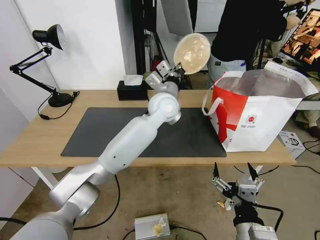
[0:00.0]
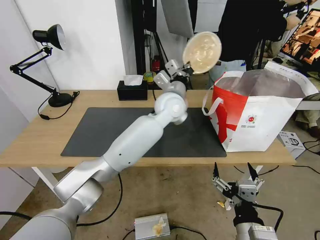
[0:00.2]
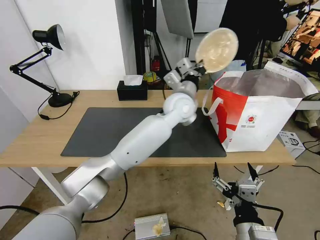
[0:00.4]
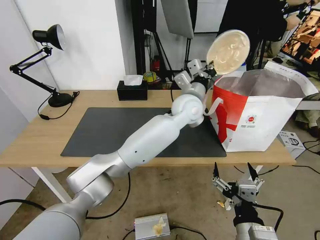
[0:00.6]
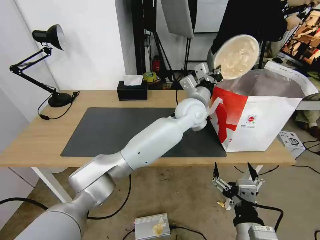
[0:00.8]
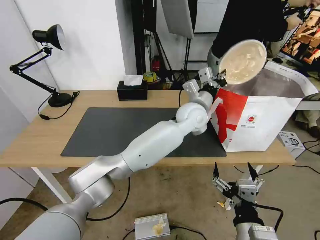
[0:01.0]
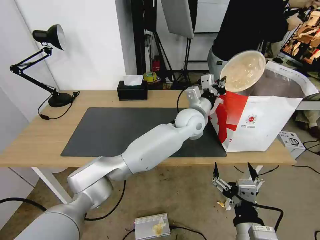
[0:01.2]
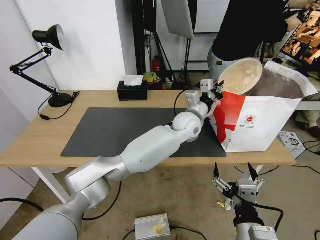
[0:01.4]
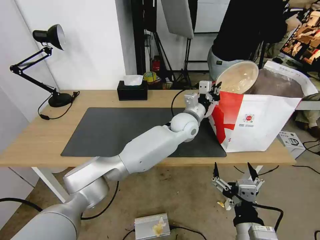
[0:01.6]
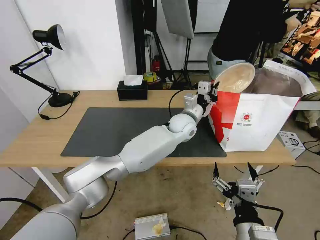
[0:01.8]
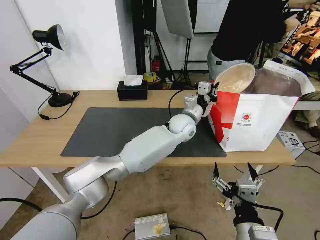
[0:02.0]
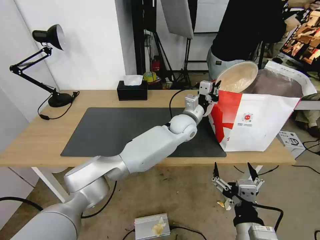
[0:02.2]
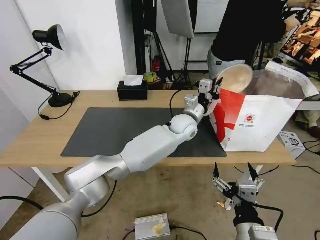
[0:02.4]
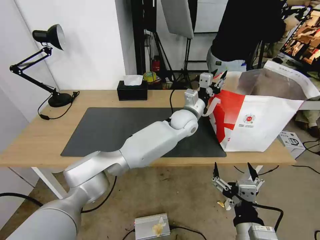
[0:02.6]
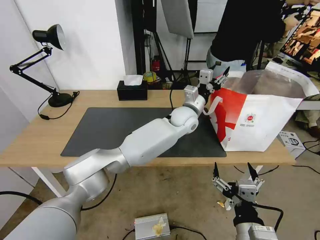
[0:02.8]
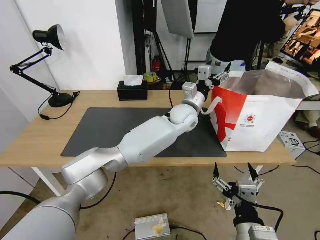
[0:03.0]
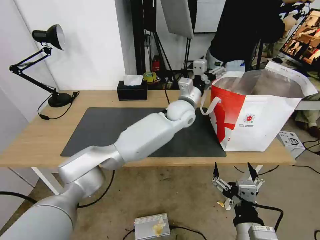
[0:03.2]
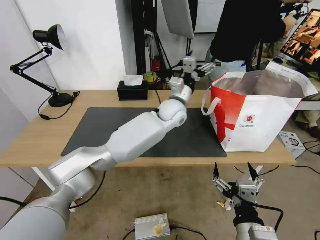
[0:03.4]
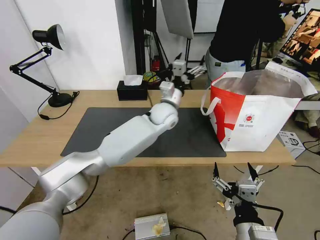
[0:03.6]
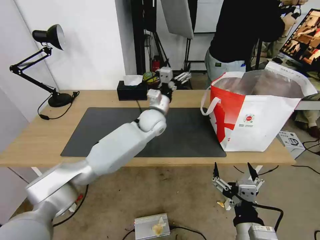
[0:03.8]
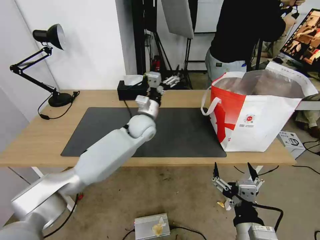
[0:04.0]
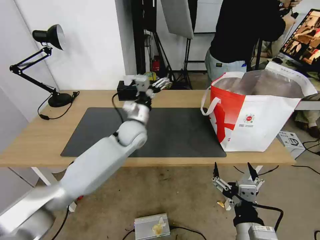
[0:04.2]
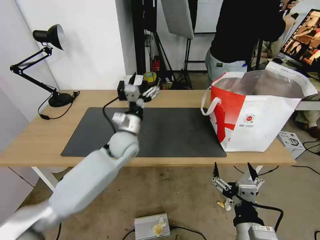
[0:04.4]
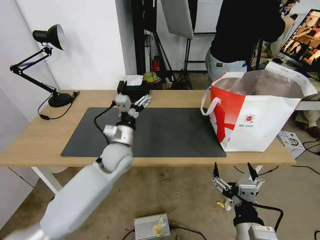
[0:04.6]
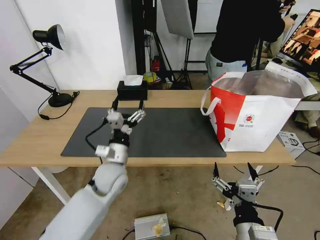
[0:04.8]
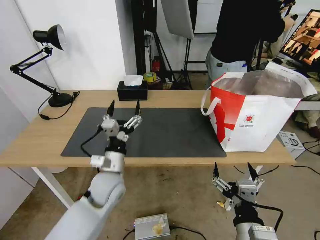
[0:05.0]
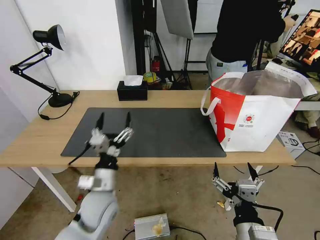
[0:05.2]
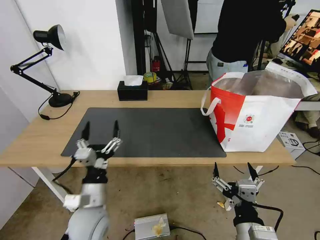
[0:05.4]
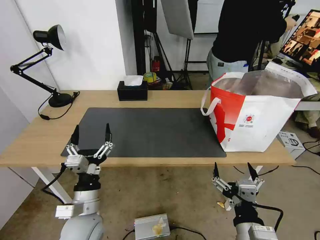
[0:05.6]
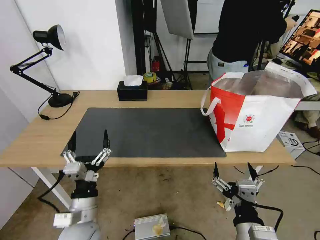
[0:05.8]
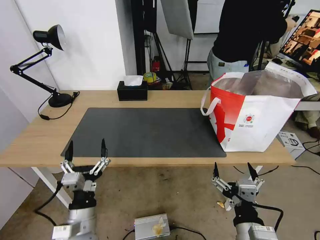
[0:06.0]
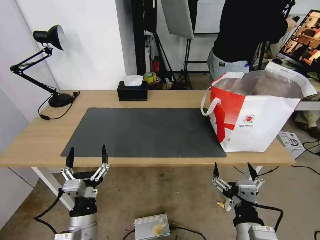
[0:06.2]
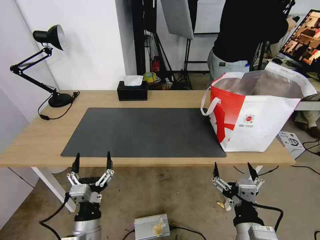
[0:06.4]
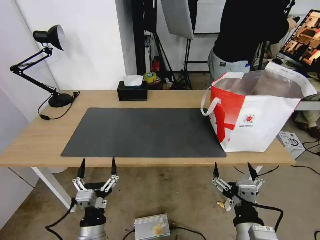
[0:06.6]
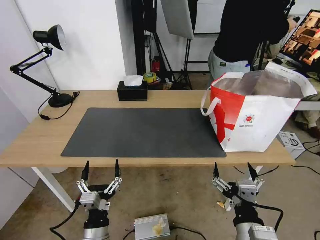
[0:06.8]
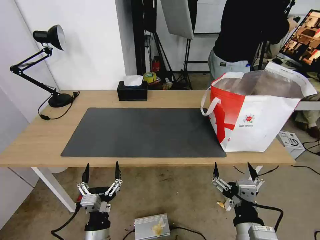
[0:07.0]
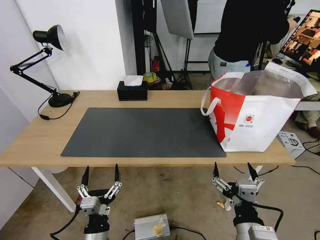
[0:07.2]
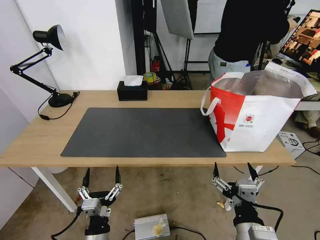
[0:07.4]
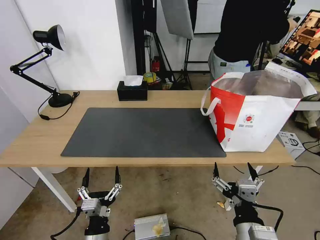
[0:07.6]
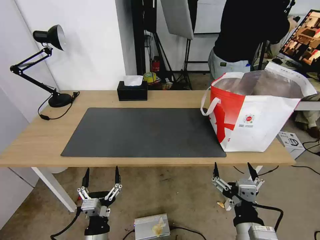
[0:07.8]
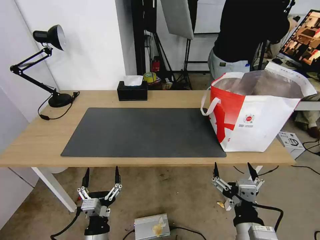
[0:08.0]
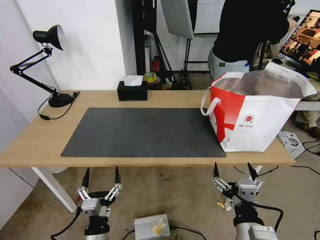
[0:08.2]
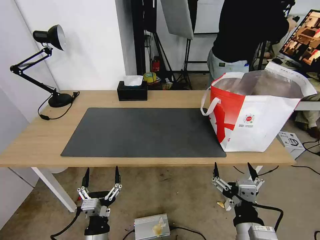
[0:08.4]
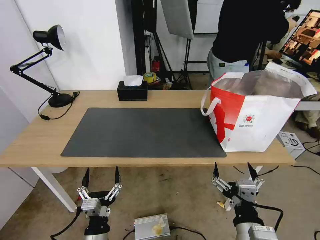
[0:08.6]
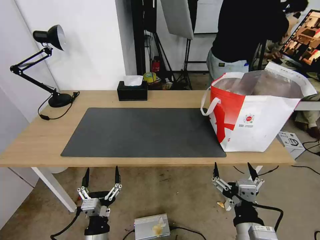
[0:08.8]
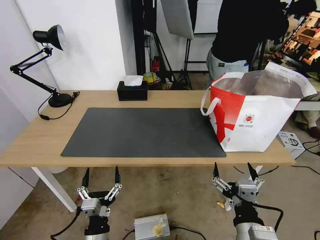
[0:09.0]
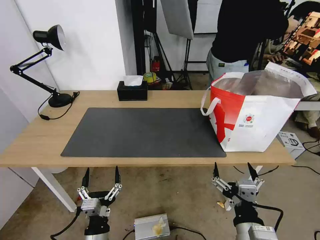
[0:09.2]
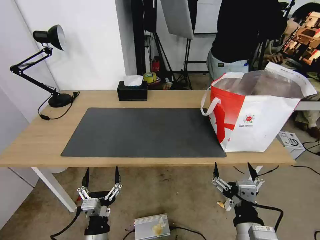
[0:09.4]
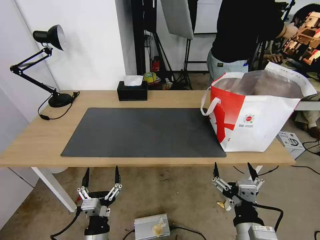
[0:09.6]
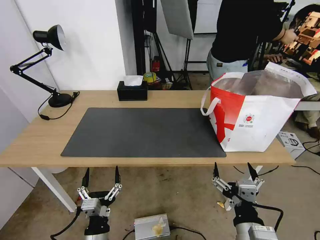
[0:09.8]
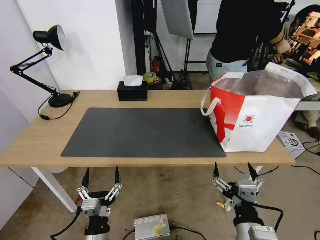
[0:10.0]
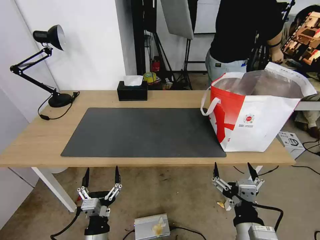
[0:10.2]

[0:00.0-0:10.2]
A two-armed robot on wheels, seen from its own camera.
Task of the whole recording: Pick up the trash from the table and place it into the takeout bag.
0:00.0 to 0:01.4: The left gripper is displaced to the right and downward by approximately 10 cm.
0:01.4 to 0:03.0: The left gripper opens up.
0:03.0 to 0:04.4: The left gripper shifts approximately 20 cm to the left and backward.
0:04.4 to 0:05.8: The left gripper travels backward by some 25 cm.
0:05.8 to 0:07.2: The left gripper travels backward and downward by some 10 cm.
0:07.2 to 0:10.2: Both grippers stay about where they are.

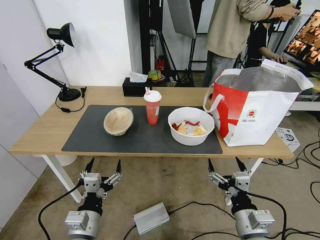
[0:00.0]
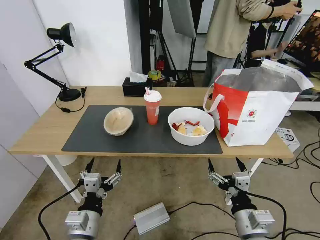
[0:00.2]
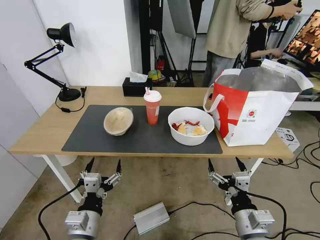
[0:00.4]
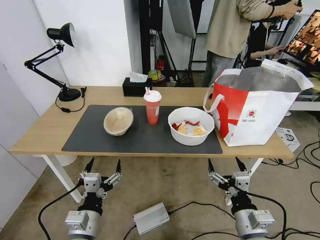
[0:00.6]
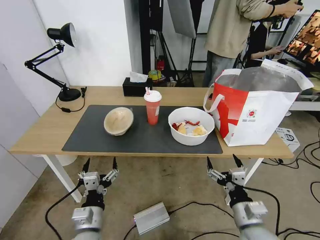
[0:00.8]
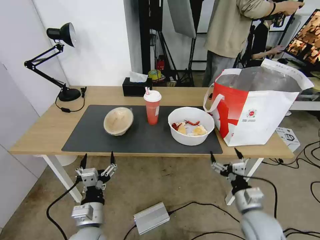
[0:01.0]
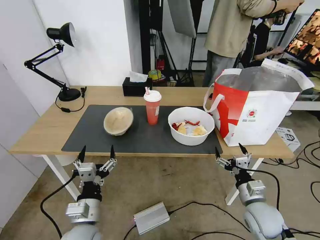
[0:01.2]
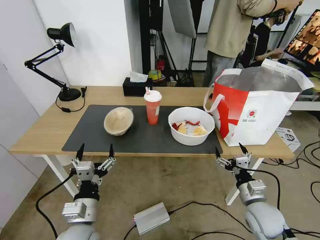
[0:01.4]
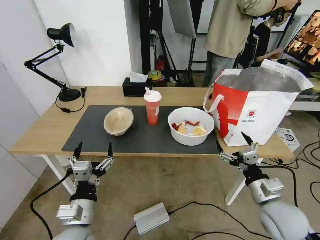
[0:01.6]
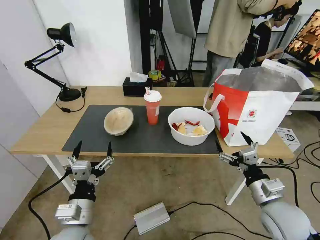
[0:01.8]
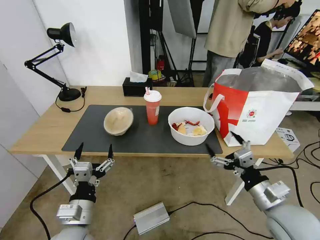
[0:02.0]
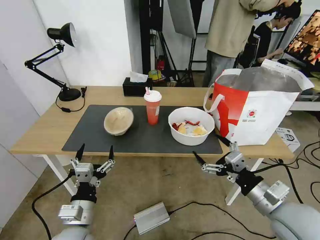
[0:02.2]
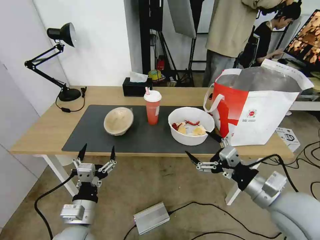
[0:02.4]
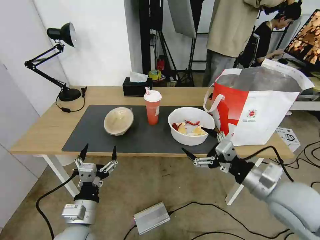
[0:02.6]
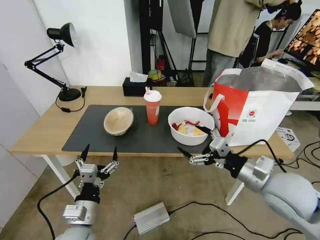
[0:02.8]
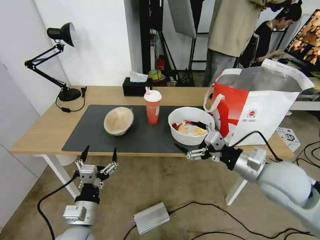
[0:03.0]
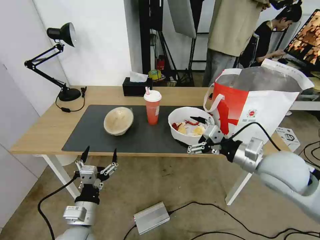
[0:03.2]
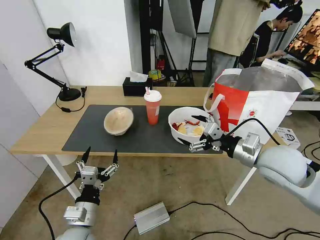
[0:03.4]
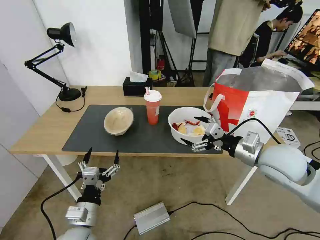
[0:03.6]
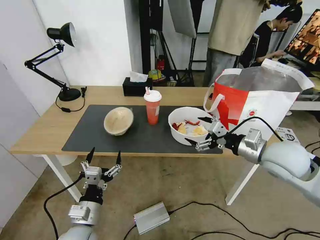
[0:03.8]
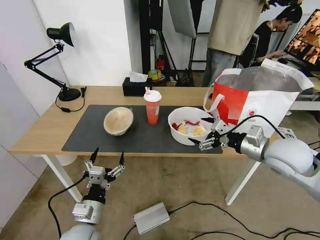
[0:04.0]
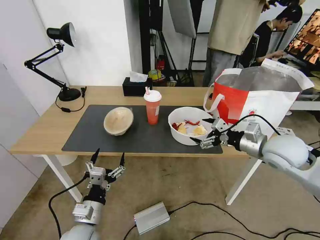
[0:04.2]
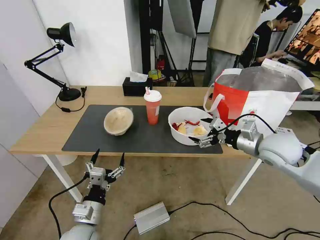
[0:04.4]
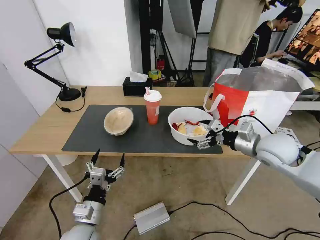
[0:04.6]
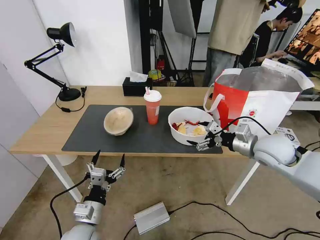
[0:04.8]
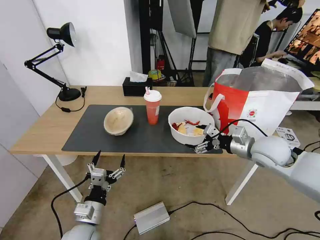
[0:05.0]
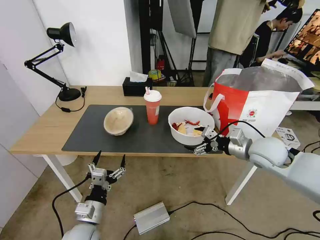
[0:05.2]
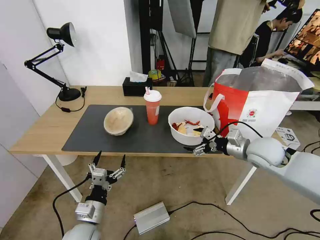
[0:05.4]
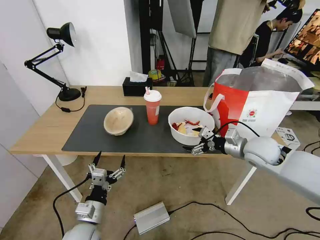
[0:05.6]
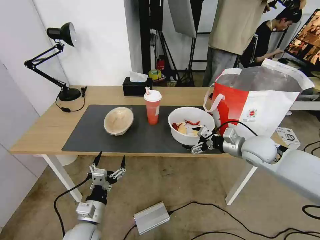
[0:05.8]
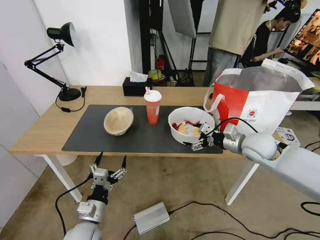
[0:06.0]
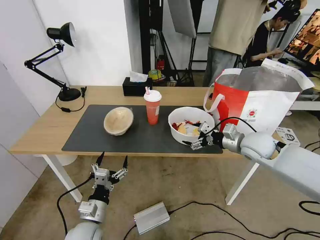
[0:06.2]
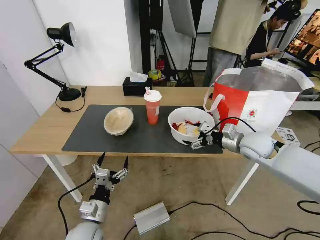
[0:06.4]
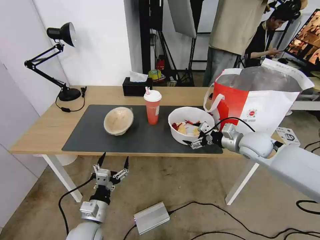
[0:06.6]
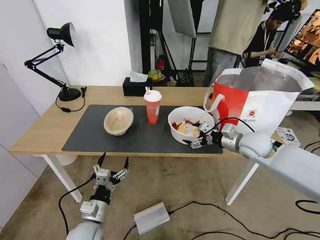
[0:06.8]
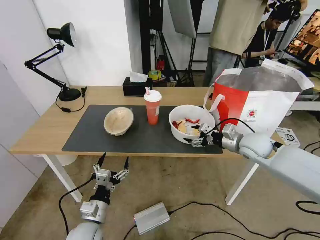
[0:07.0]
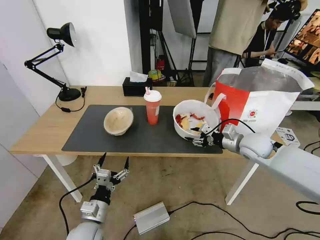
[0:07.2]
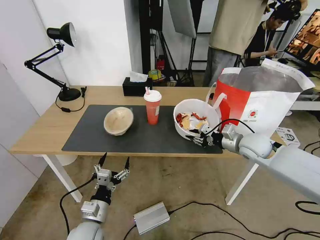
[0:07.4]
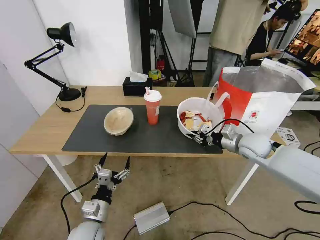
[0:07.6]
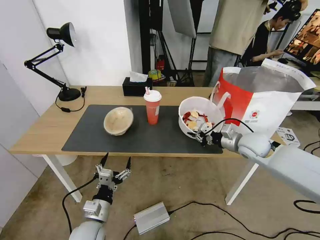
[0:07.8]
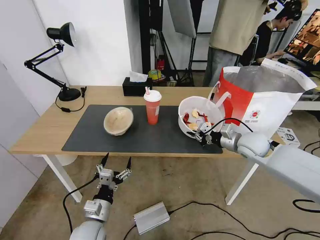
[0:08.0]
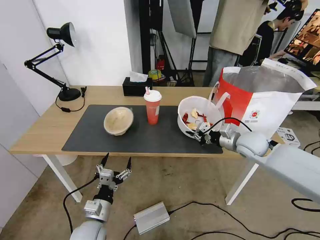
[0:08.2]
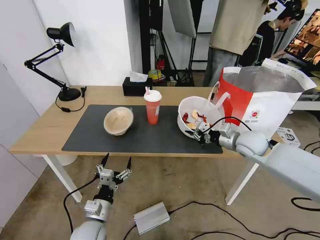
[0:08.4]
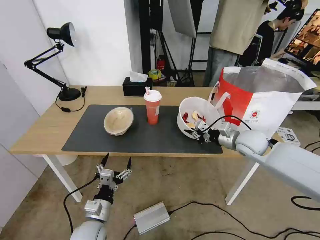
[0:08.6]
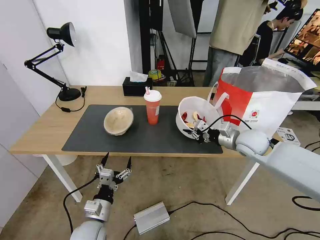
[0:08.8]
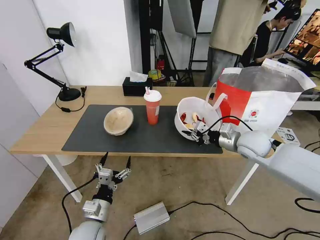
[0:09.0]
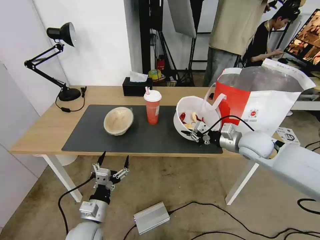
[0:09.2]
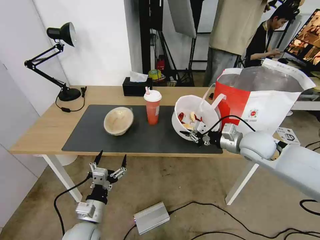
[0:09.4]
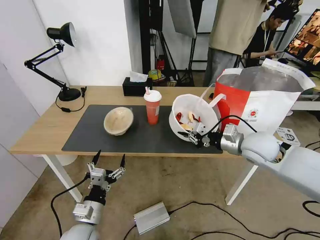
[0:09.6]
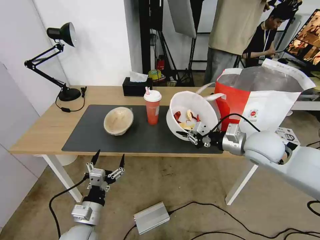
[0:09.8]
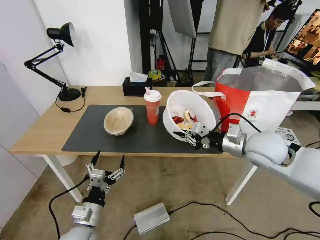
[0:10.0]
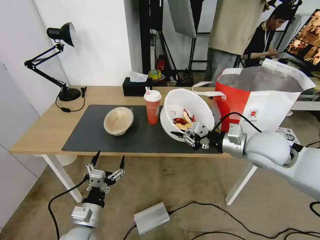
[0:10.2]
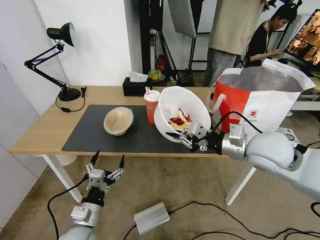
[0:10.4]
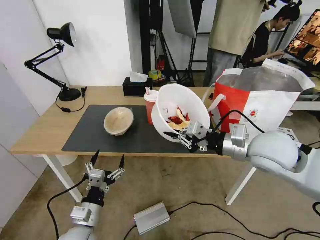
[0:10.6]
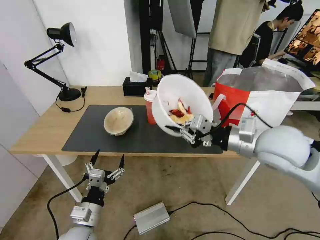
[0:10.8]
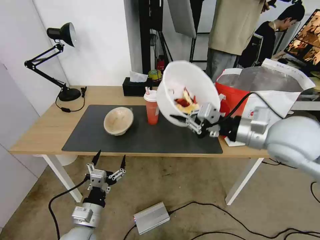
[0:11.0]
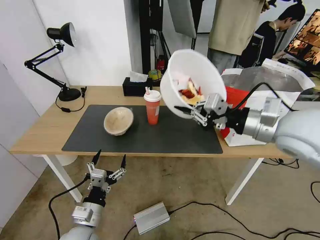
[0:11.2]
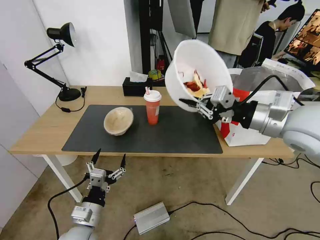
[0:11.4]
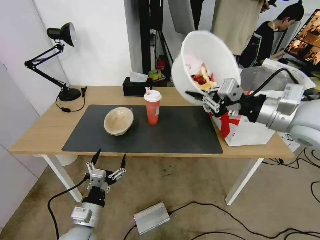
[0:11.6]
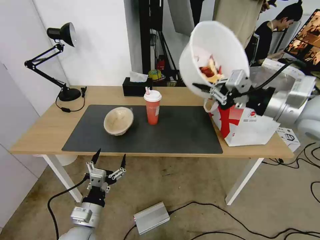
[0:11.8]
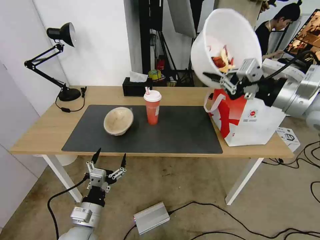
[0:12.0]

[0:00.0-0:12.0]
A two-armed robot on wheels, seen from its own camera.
Task of the whole recording: Pick up the trash from the table and place it into the takeout bag.
0:01.6 to 0:03.0: The right gripper heads upward and forward, covering approximately 10 cm.
0:03.0 to 0:04.4: The right gripper goes approximately 10 cm forward.
0:04.4 to 0:06.0: The right gripper moves approximately 5 cm.
0:06.0 to 0:07.6: The right gripper closes up.
0:07.6 to 0:09.0: The grippers move only a little.
0:09.0 to 0:10.4: The right gripper moves backward and upward, about 10 cm.
0:10.4 to 0:12.0: The right gripper is displaced upward and to the right by roughly 15 cm.
